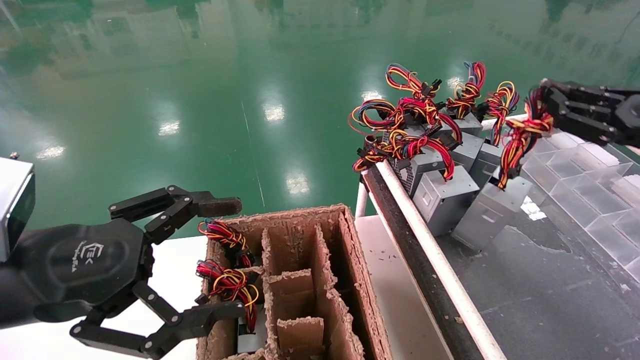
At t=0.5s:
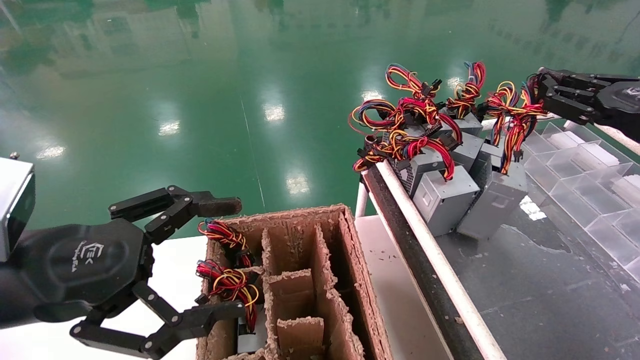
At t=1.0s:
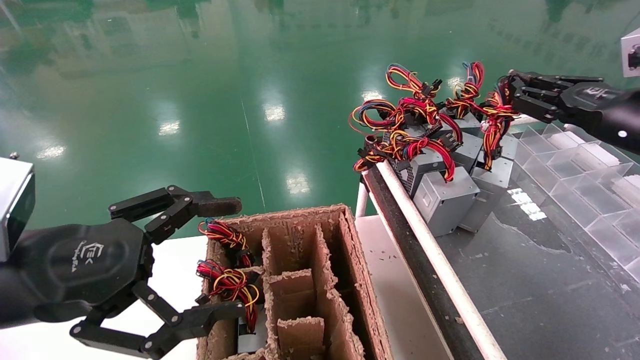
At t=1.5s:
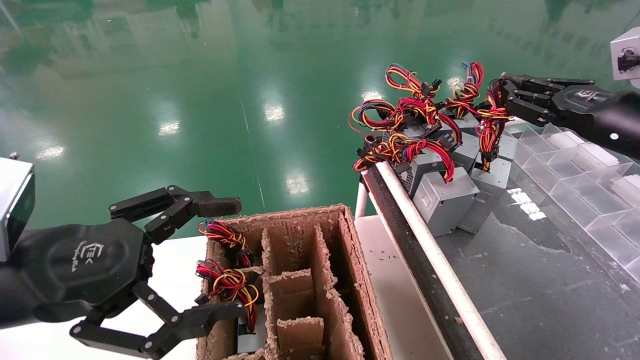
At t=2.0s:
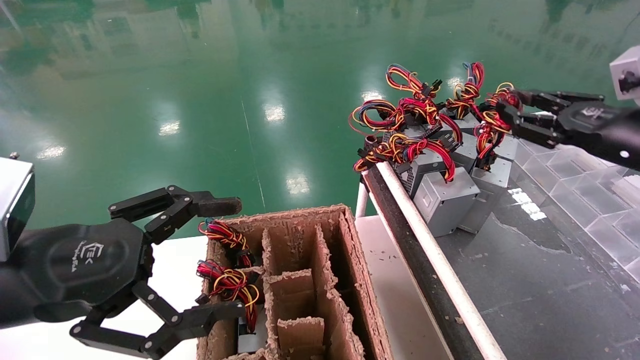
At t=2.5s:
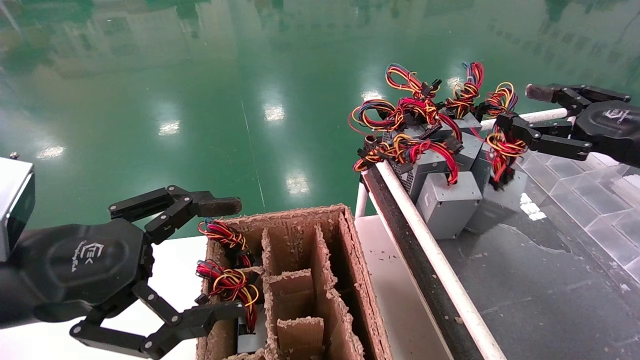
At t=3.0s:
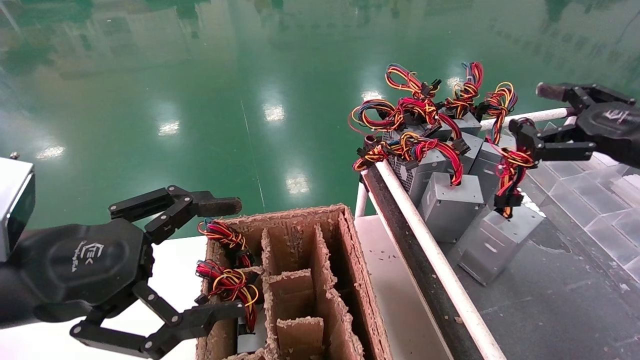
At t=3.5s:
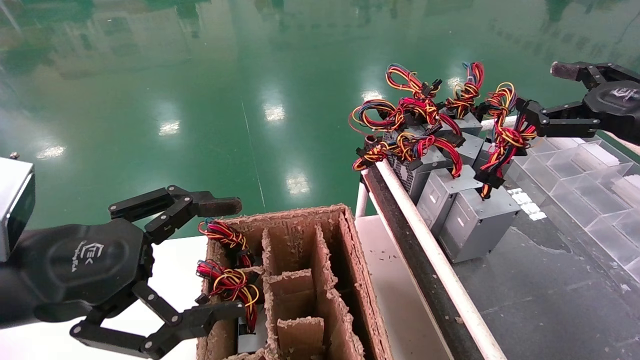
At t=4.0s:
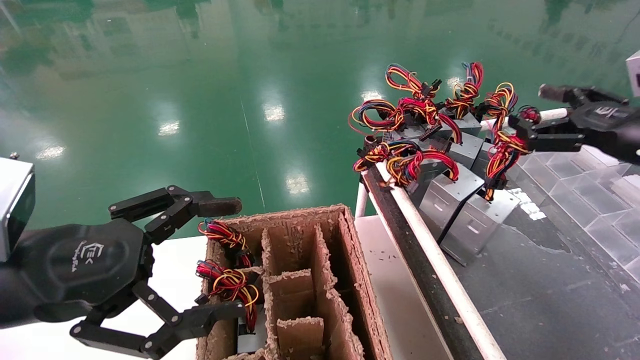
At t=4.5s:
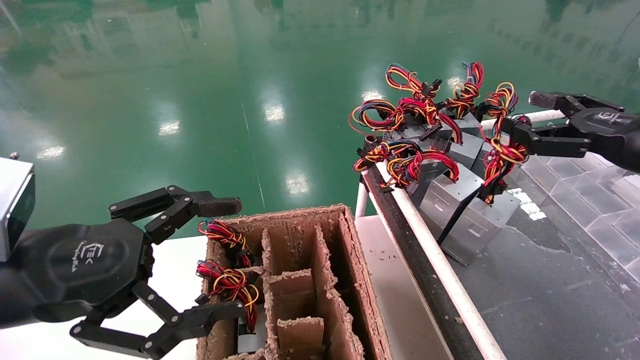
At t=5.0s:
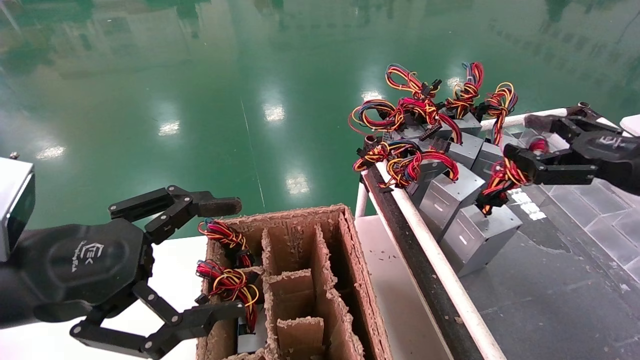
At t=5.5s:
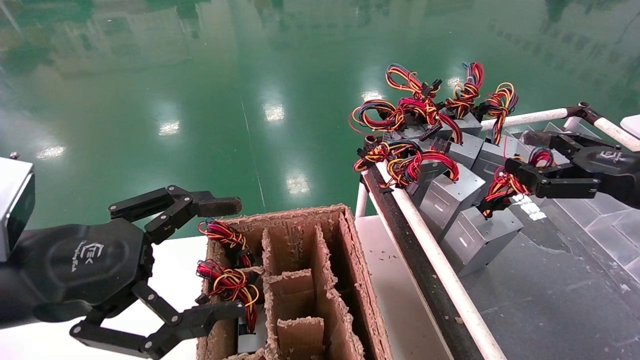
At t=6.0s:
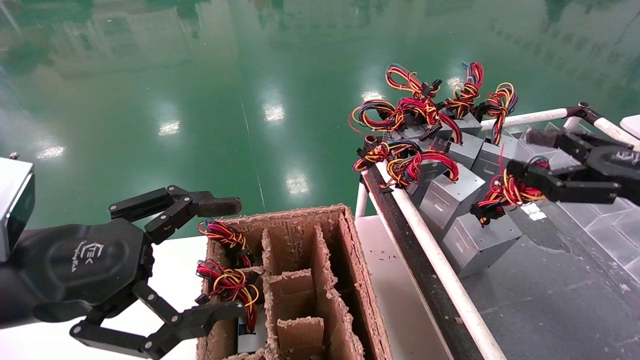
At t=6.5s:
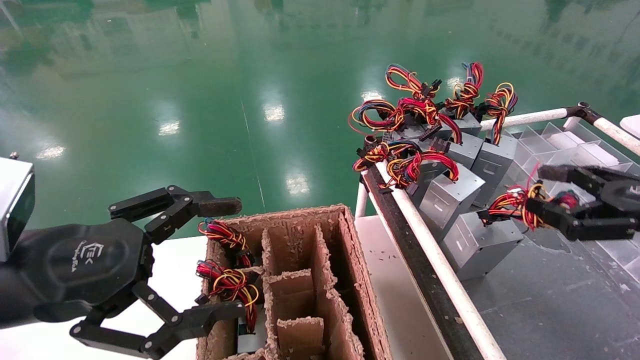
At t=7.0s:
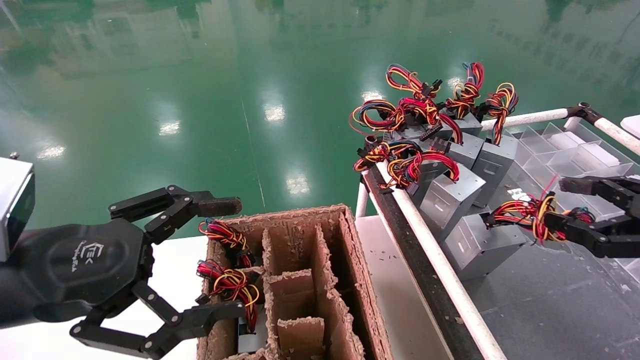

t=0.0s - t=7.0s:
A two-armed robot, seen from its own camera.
Step, t=0.0s - t=2.0s: Place the power supply on the operating table.
t=0.0s - t=2.0s: The right gripper moves some 5 cm.
t=2.0s - t=3.5s: The right gripper opens.
t=3.5s - t=5.0s: The grippers make only small movements.
t=5.0s - t=7.0s: The right gripper moves backward, roughly 5 cm.
